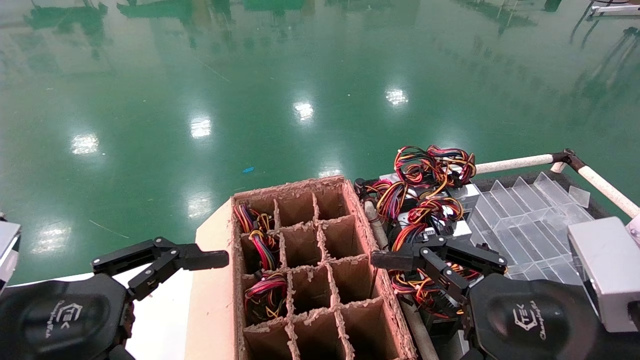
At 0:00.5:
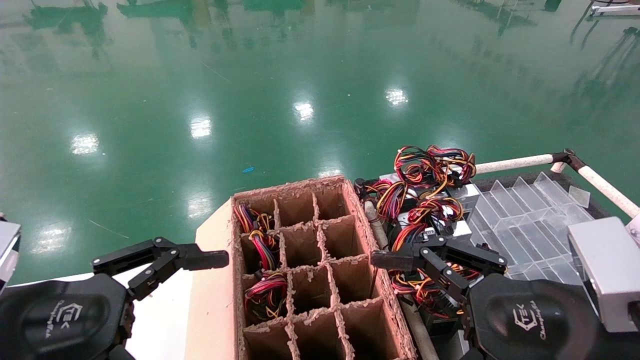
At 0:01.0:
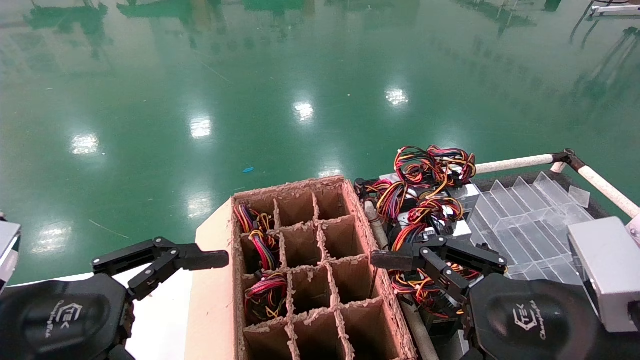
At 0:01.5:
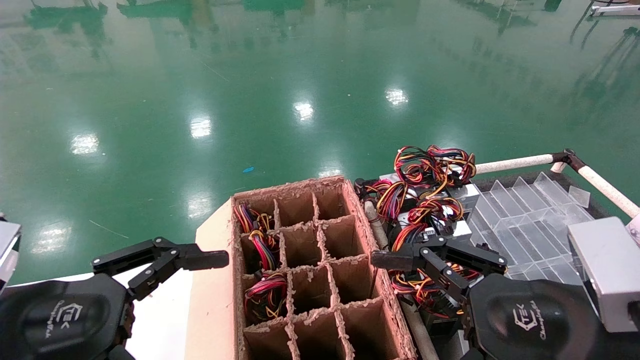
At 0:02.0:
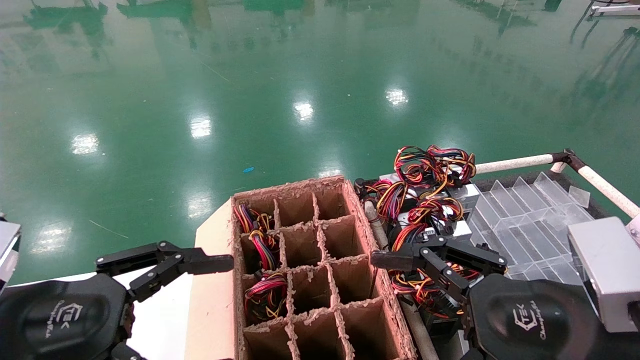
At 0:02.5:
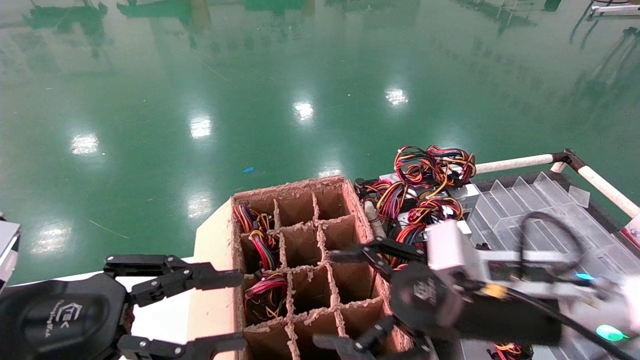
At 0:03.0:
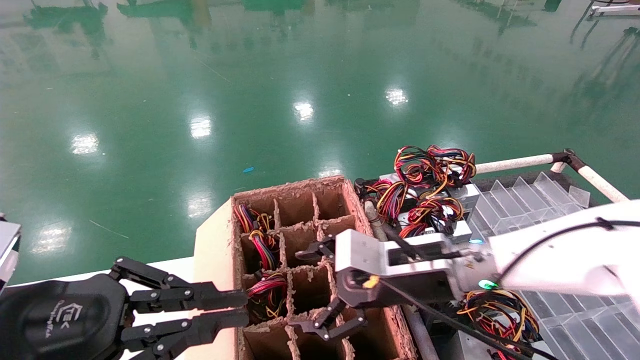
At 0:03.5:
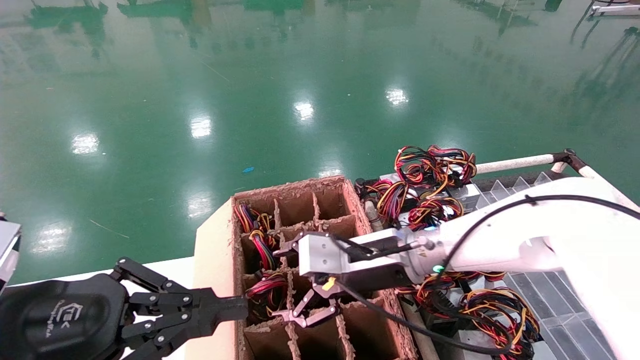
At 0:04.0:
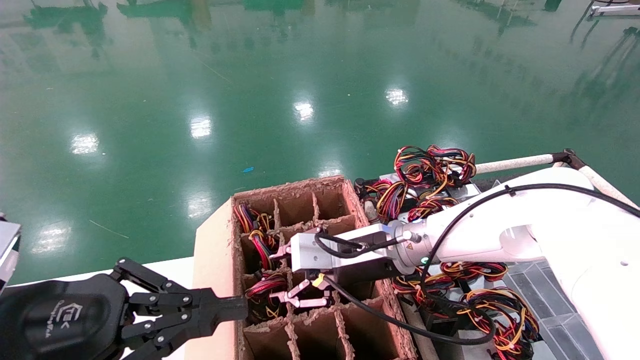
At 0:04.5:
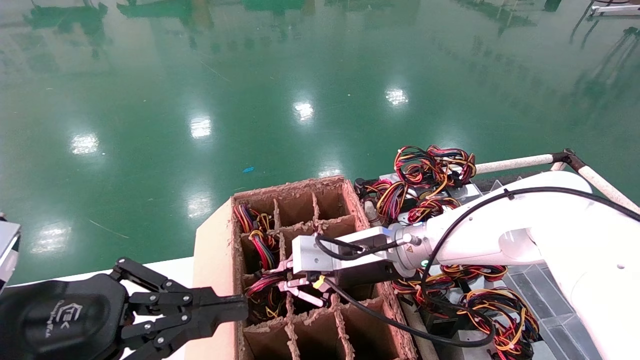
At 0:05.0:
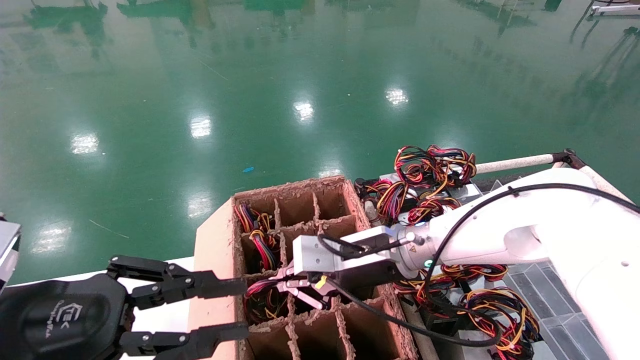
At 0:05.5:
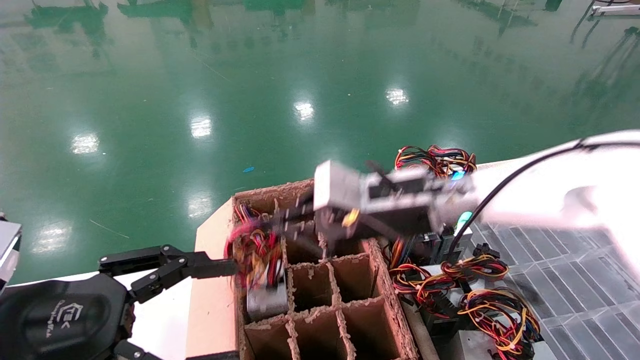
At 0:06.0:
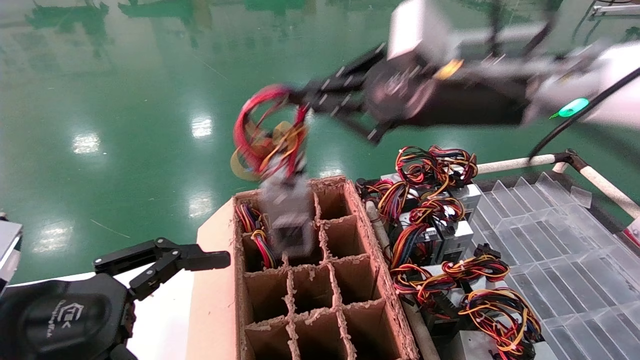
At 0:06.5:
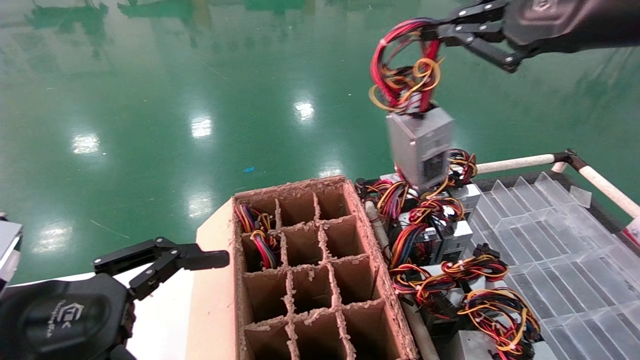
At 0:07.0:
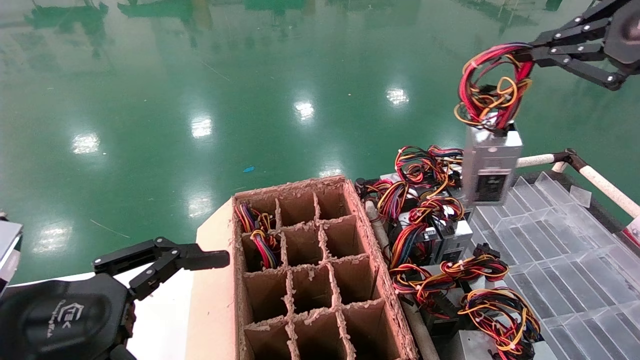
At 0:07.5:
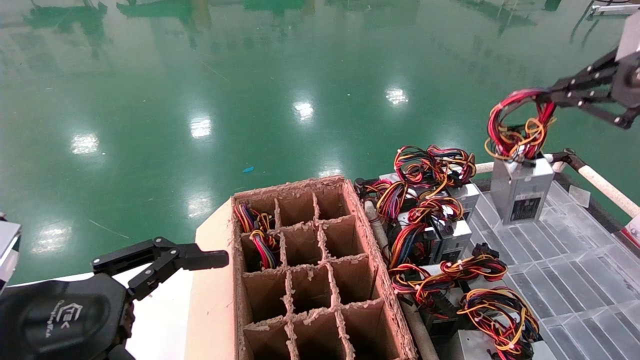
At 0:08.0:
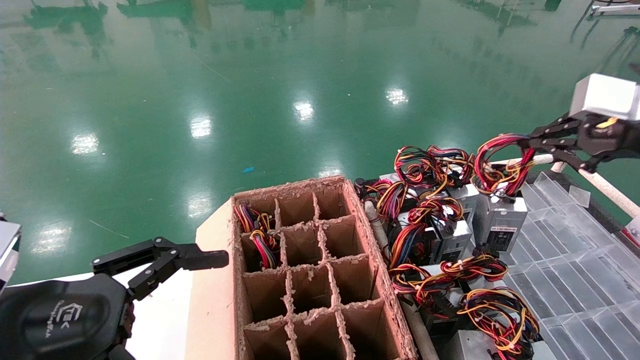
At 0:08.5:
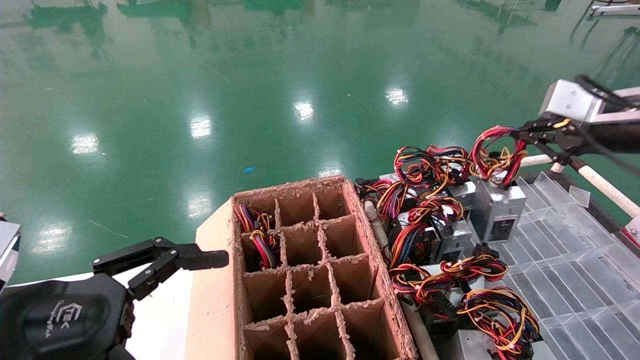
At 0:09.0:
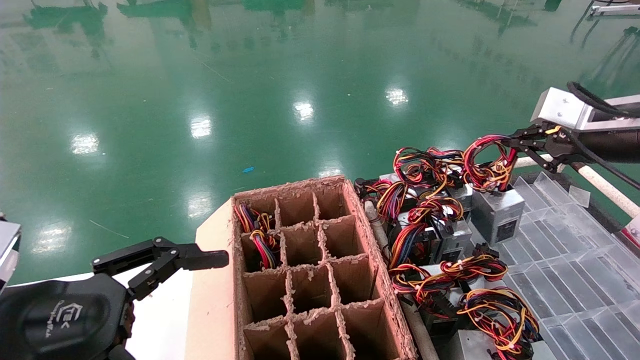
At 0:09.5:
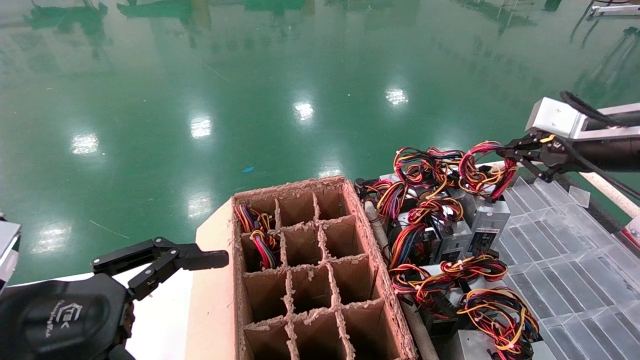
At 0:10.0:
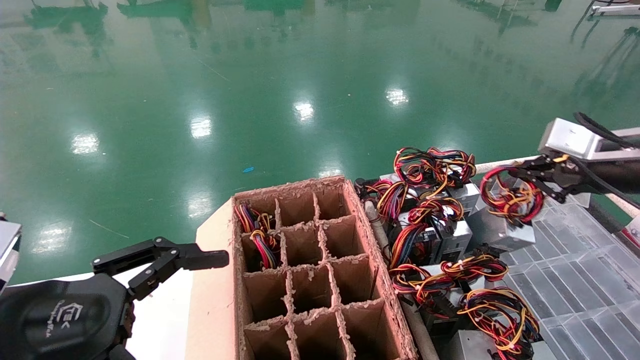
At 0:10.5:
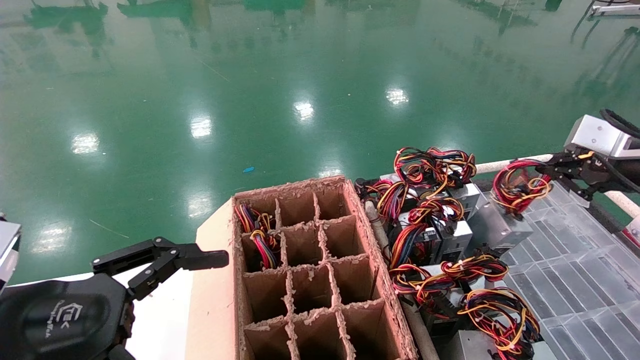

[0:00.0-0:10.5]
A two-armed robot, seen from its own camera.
Step, 0:02.0 to 0:04.5: Grab and lift the power supply from the large box.
0:00.0 to 0:02.0: The two grippers keep their place.
0:02.0 to 0:04.0: The left gripper closes its fingers, while the right gripper moves forward and to the left, about 25 cm, and closes.
0:04.0 to 0:06.5: The left gripper opens up, while the right gripper goes approximately 35 cm upward, to the right and backward, and closes.
0:06.5 to 0:08.5: The right gripper goes roughly 20 cm to the right, downward and forward.
0:08.5 to 0:10.5: The right gripper ends up roughly 5 cm from where it was.

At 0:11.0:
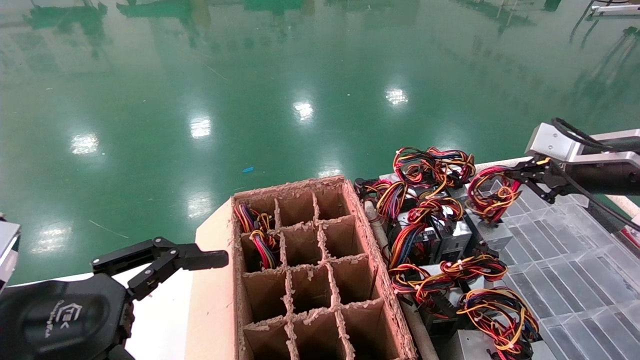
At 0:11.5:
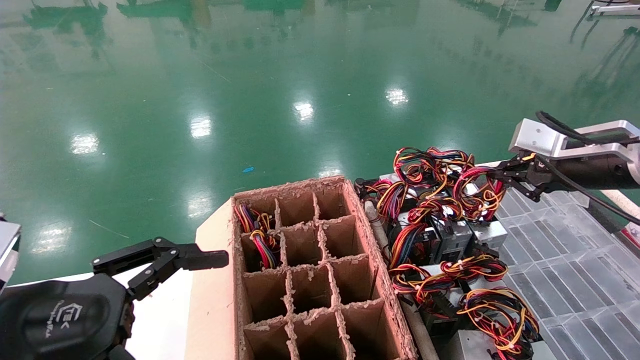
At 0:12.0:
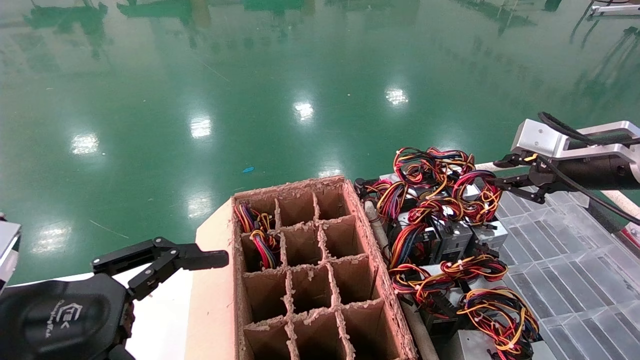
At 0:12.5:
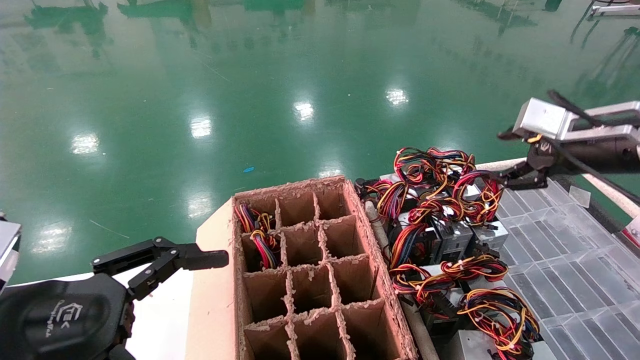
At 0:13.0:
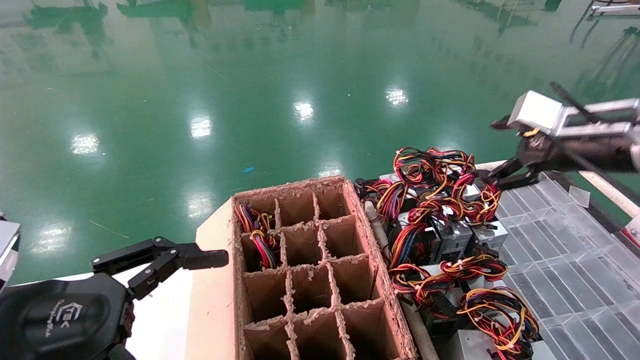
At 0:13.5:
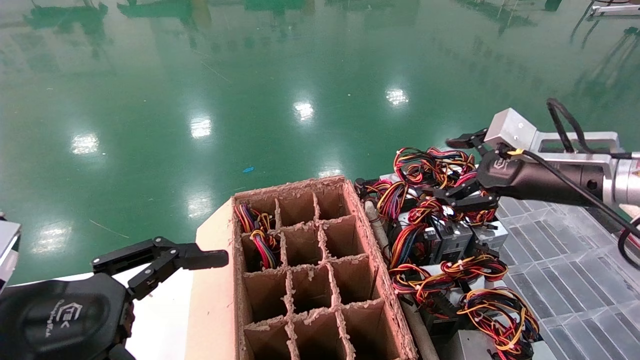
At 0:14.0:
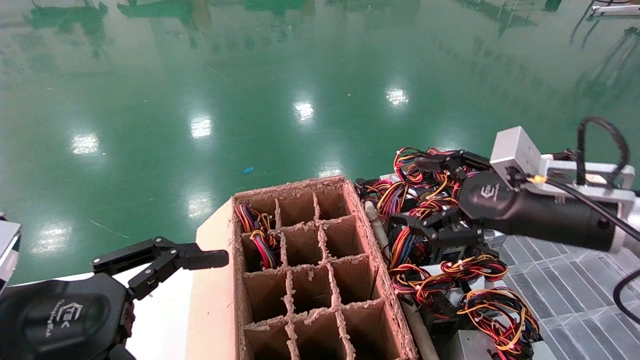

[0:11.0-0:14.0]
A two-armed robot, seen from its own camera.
0:11.0 to 0:12.5: The right gripper opens up.
0:12.5 to 0:14.0: The right gripper goes some 10 cm to the left, downward and backward, and opens.
